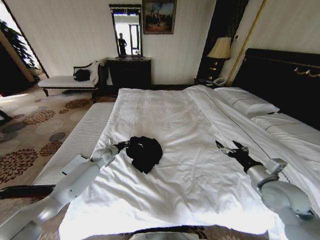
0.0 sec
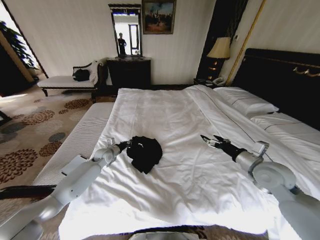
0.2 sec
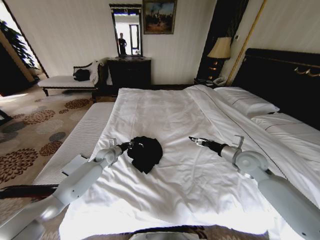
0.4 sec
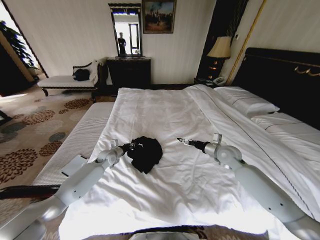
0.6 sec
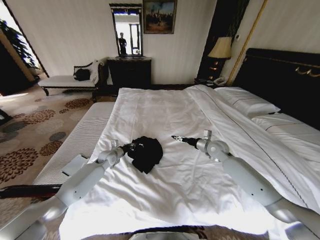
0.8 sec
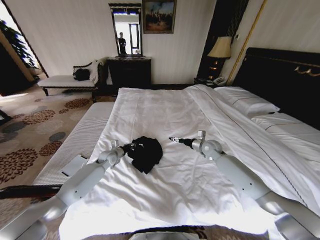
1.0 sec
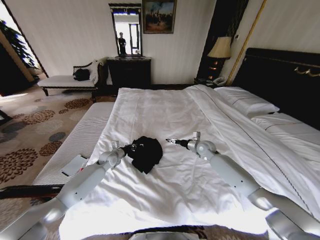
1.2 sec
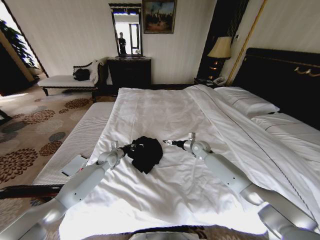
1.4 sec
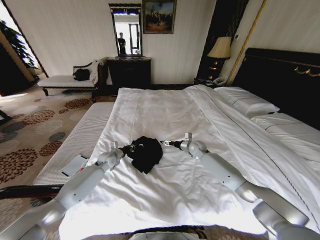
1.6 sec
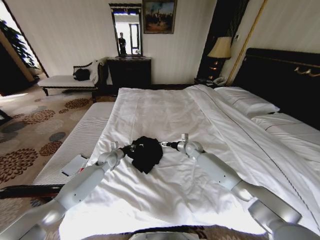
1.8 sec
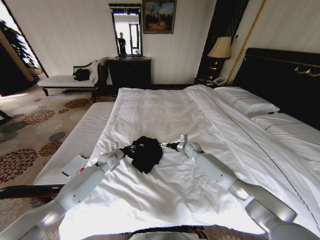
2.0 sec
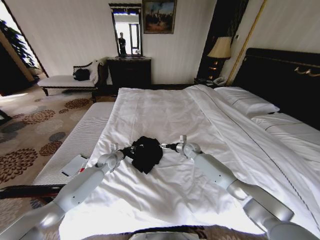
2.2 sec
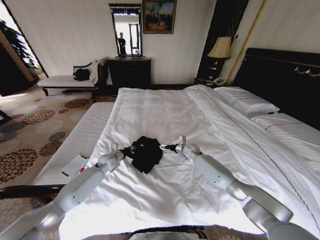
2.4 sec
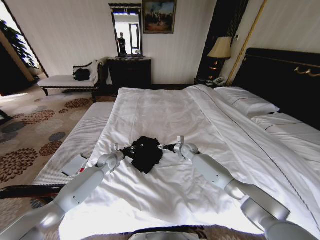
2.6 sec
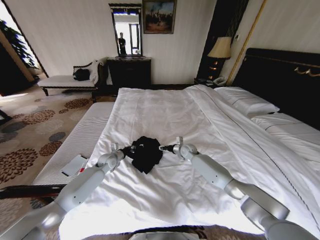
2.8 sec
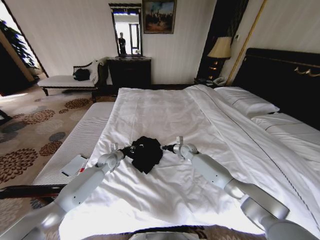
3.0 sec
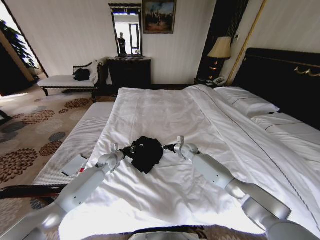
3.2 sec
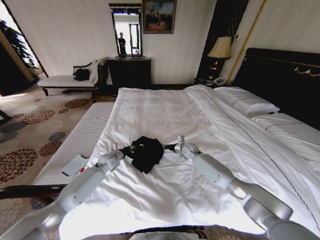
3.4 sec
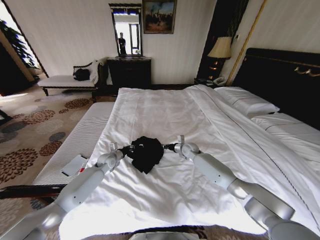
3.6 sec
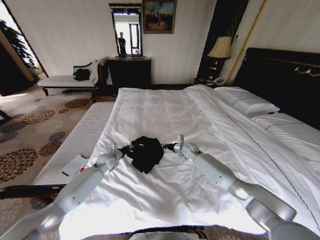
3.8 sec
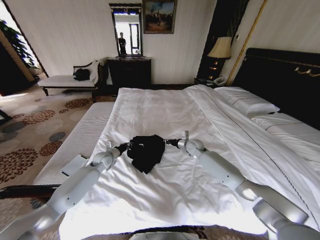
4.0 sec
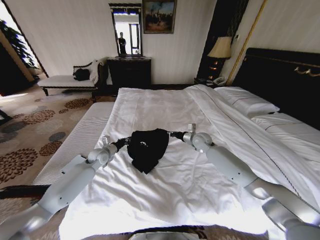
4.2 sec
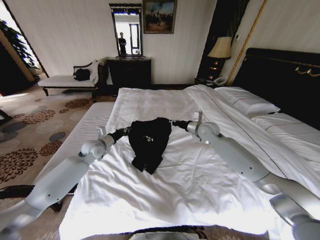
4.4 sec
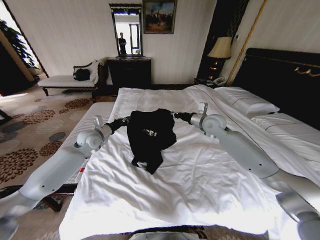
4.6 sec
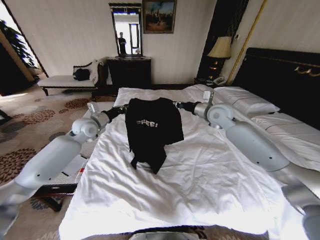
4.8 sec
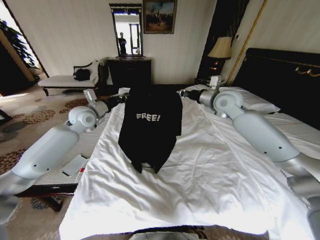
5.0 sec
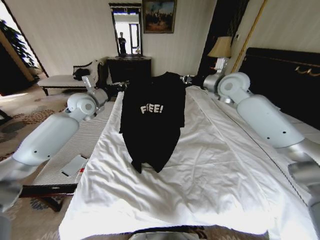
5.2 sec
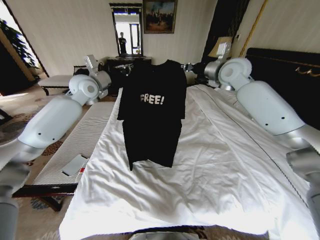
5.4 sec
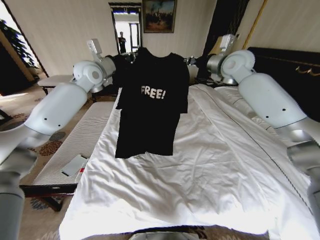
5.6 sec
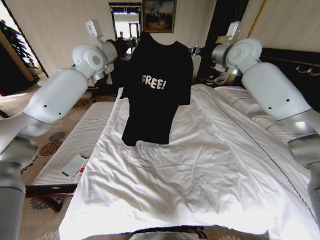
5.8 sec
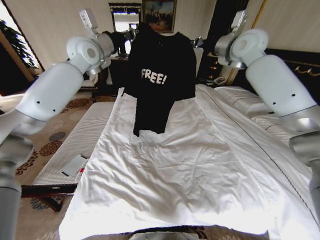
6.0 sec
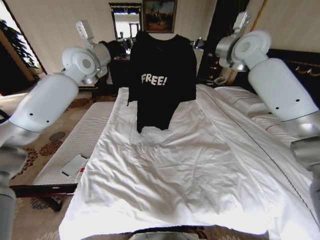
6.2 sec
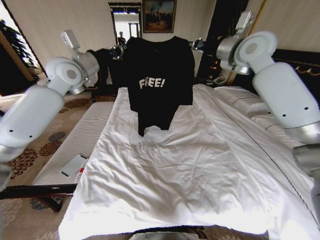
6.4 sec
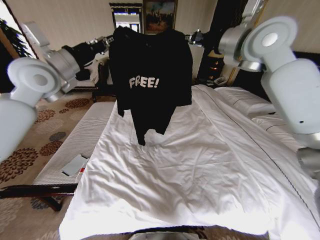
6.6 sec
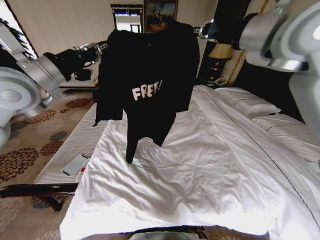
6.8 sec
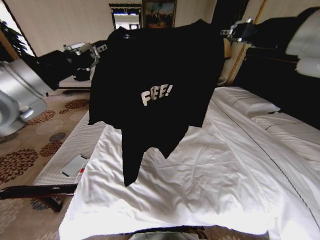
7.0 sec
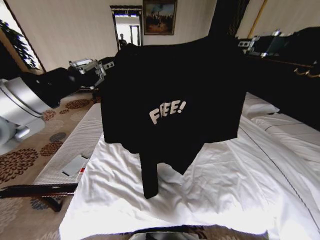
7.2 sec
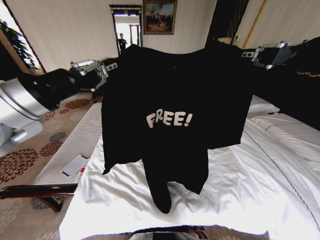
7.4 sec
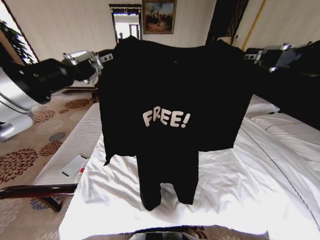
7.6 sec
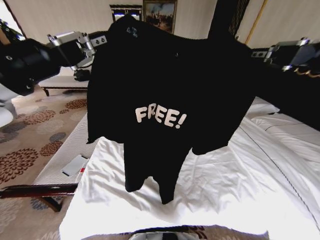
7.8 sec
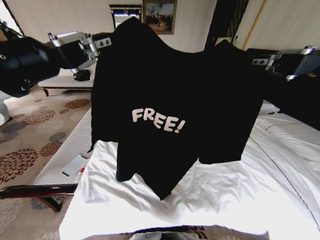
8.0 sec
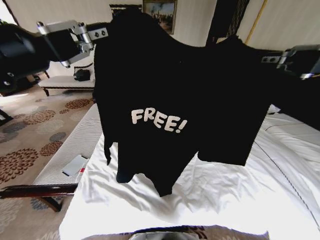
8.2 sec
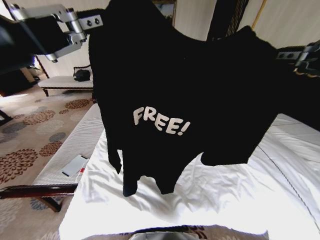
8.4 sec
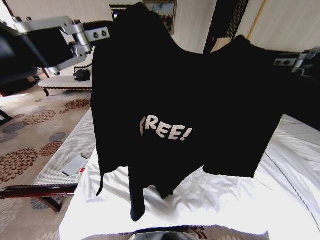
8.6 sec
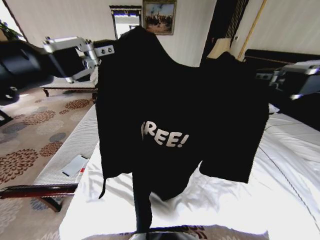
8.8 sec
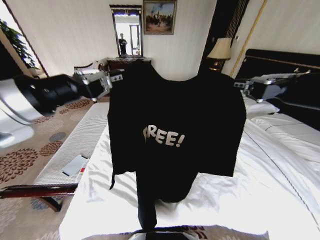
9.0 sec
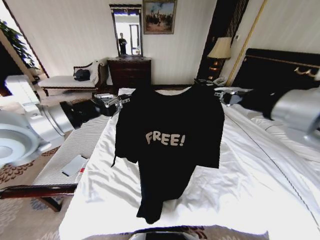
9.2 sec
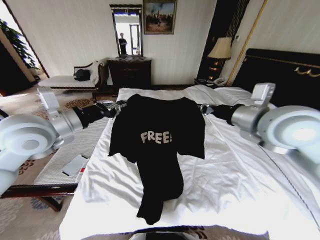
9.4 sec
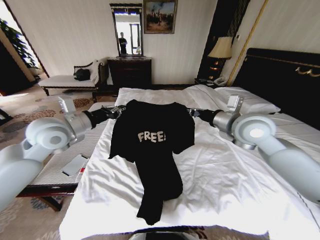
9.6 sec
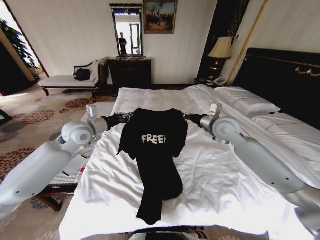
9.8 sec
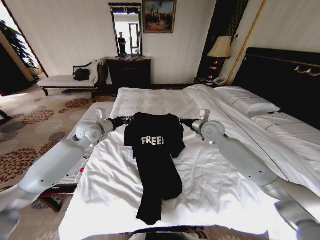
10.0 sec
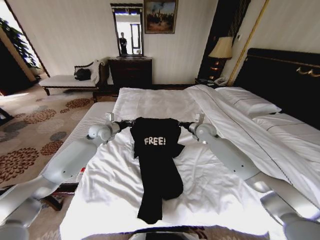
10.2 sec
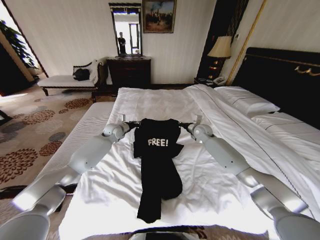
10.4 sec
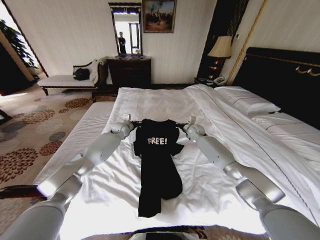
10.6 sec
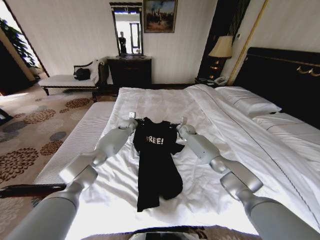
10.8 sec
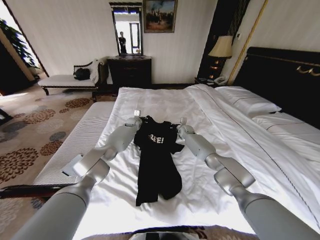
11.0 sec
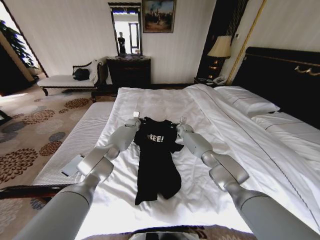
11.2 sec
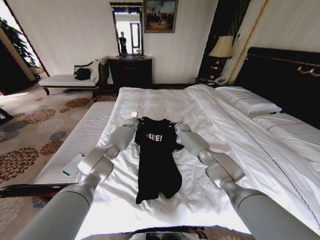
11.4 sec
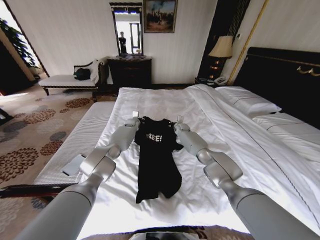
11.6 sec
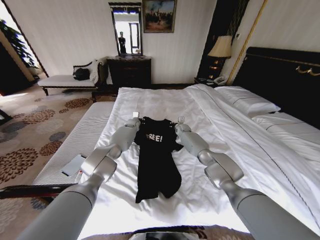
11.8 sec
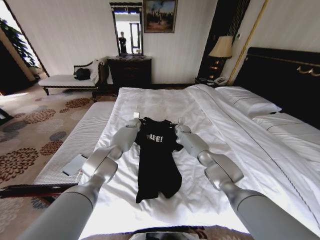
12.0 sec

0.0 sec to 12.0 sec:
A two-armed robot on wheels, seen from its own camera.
Task of the whole recording: Fold the clothes on the bed.
0.0 sec to 1.6 sec: The right gripper travels forward and to the left by approximately 30 cm.
1.6 sec to 3.0 sec: The right gripper ends up some 5 cm from where it was, and closes its fingers.
3.0 sec to 4.4 sec: Both grippers travel together upward, about 15 cm. The right gripper closes.
4.4 sec to 6.0 sec: Both grippers travel together upward, some 35 cm.
6.0 sec to 7.6 sec: The grippers both shift backward by about 35 cm.
7.6 sec to 9.0 sec: The right gripper moves about 10 cm backward and comes back.
9.0 sec to 10.4 sec: Both grippers move forward and downward, some 50 cm.
10.4 sec to 12.0 sec: The left gripper goes some 15 cm forward, to the right and downward. Meanwhile the right gripper moves forward, downward and to the left, approximately 15 cm.

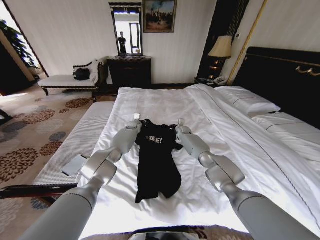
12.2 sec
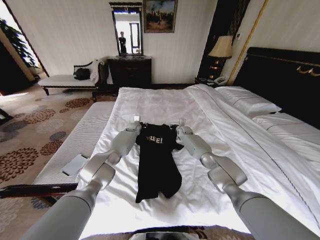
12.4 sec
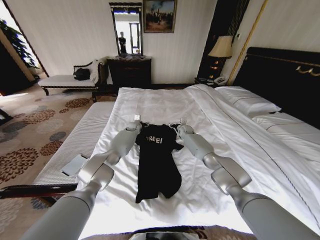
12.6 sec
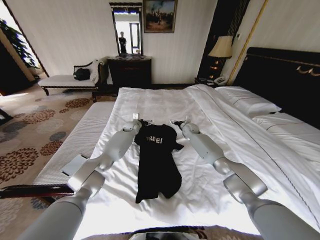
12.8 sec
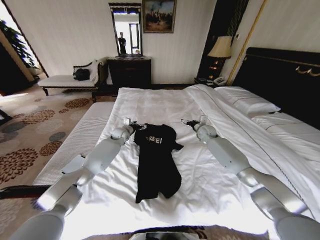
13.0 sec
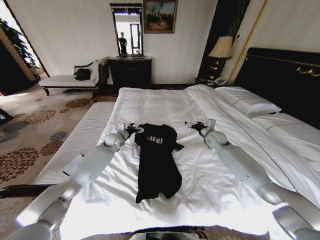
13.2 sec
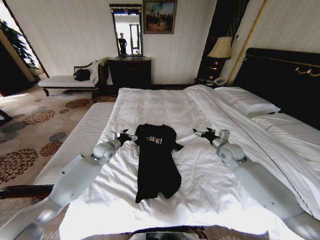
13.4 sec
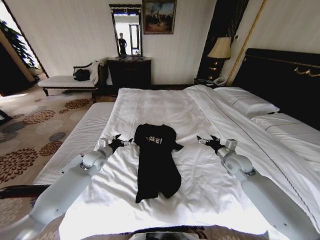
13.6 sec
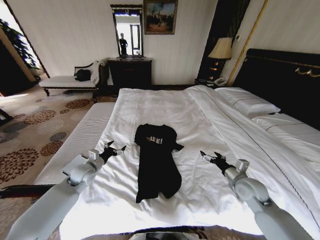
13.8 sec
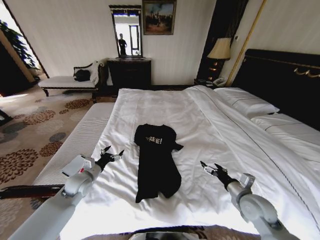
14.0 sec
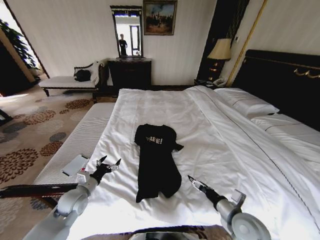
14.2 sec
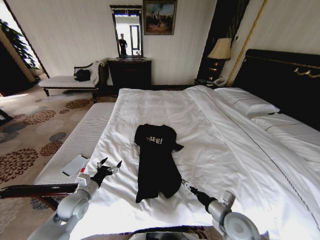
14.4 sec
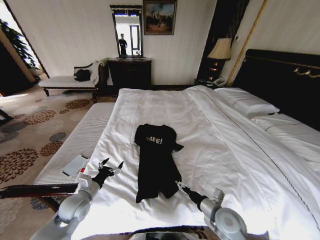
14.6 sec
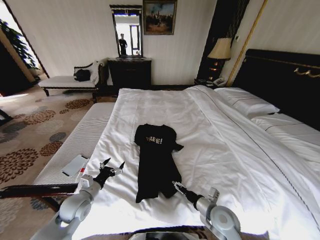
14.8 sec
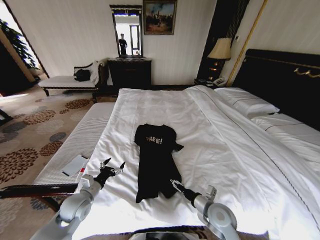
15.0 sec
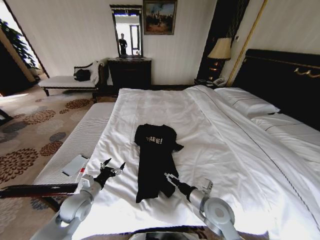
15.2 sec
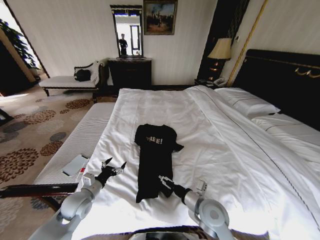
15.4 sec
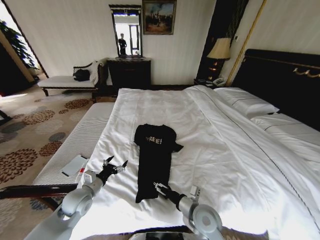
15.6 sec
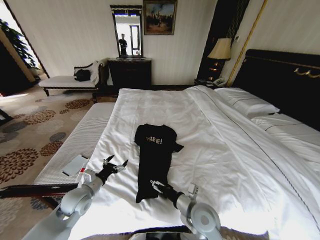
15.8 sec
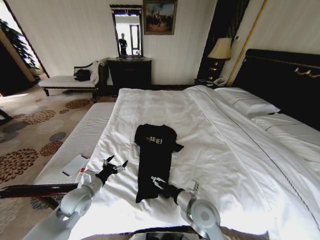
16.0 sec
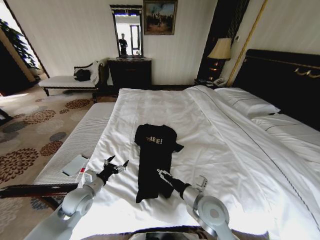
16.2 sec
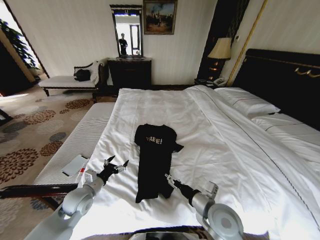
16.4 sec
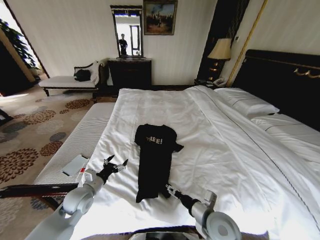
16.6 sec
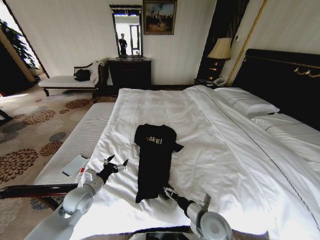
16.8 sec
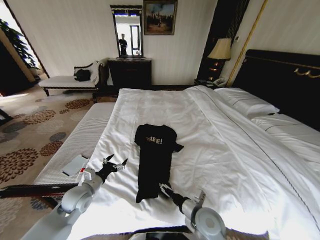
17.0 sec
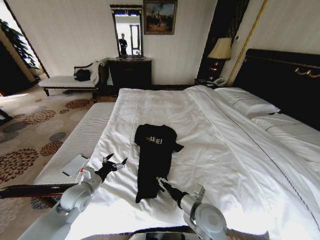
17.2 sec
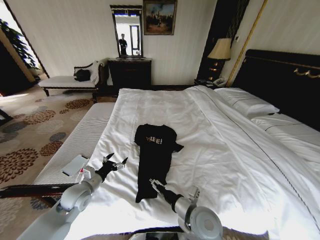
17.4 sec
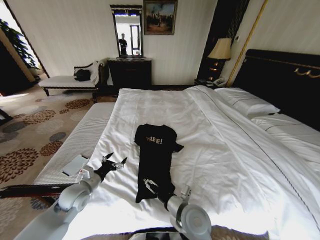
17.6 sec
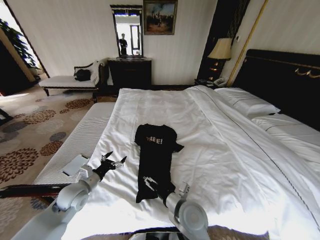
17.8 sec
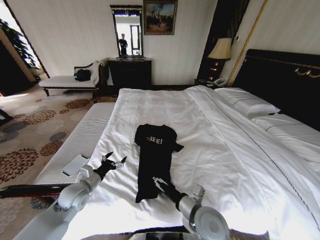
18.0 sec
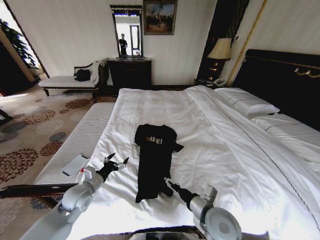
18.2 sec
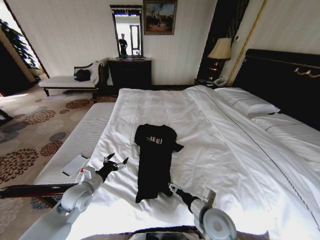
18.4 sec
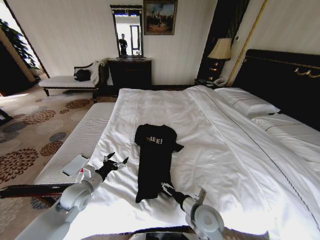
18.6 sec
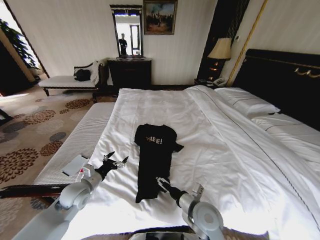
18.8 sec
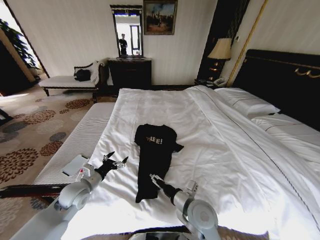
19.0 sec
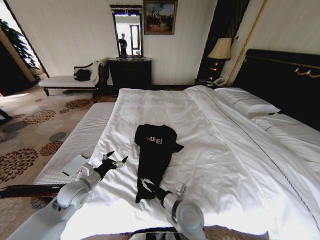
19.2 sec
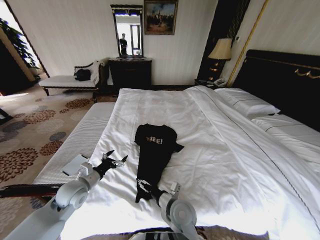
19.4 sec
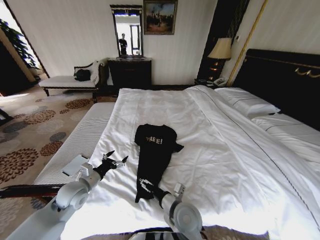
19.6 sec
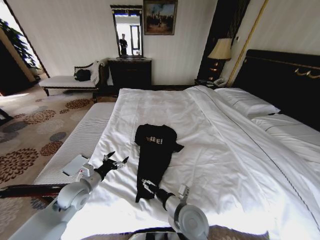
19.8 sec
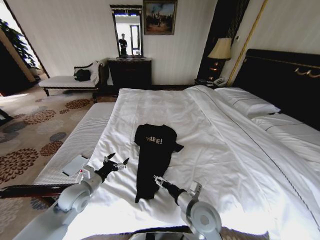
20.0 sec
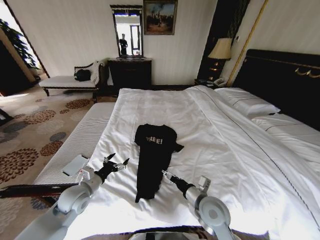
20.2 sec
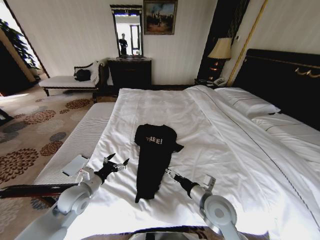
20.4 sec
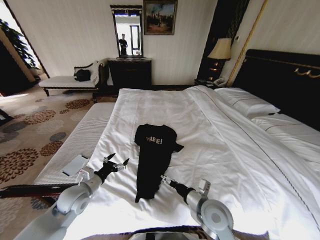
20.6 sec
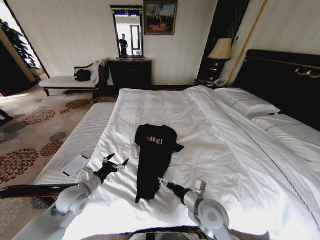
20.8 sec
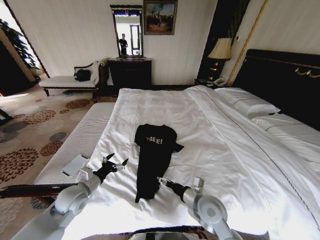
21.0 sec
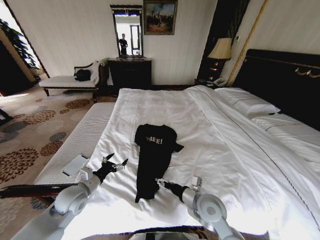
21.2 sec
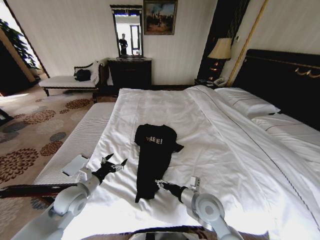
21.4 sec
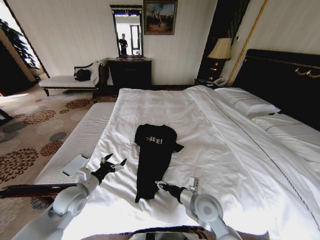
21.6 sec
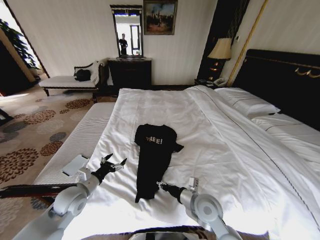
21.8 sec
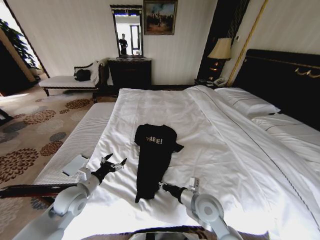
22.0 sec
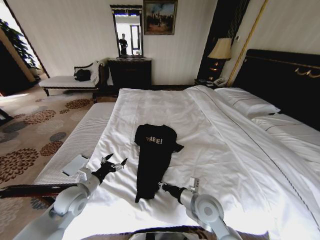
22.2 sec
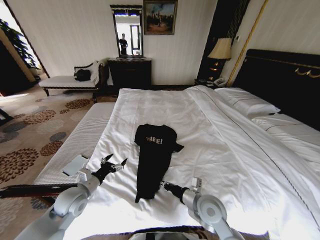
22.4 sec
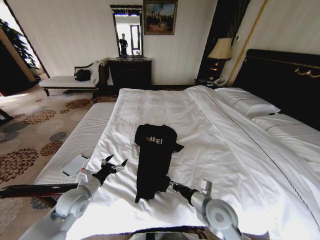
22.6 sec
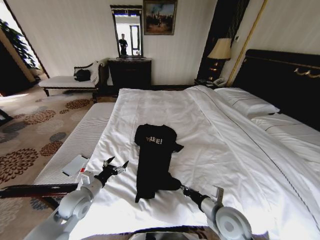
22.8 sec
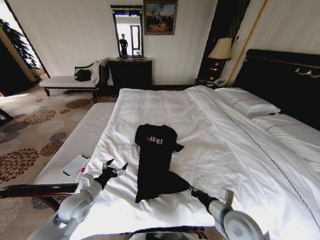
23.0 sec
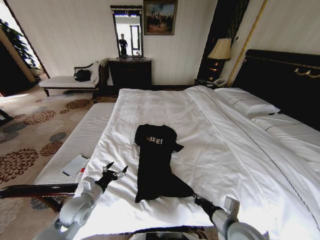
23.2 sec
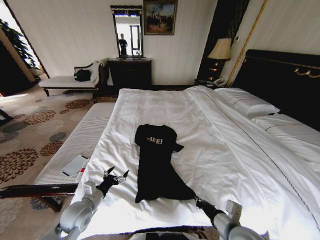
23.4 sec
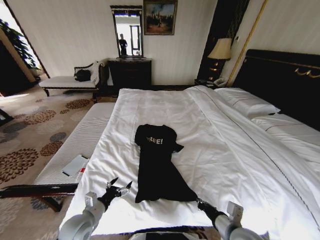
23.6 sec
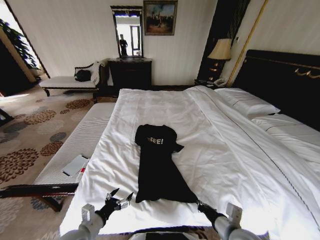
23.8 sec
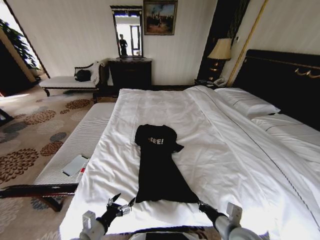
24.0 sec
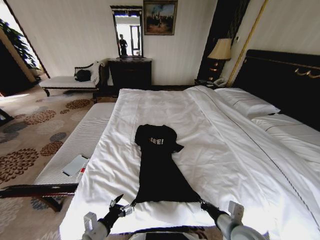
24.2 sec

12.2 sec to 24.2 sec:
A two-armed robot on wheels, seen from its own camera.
Task of the whole recording: Fold the clothes on the bed.
12.2 sec to 13.8 sec: The right gripper shifts about 40 cm backward and to the right, and opens its fingers, while the left gripper travels backward and to the left by about 35 cm, and opens.
13.8 sec to 15.2 sec: The right gripper heads to the left and backward, covering approximately 15 cm; the left gripper moves backward, about 10 cm.
15.2 sec to 16.6 sec: The grippers move only a little.
16.6 sec to 18.2 sec: The right gripper moves about 10 cm to the left and comes back.
18.2 sec to 19.8 sec: The right gripper is displaced to the left by some 10 cm.
19.8 sec to 21.2 sec: The right gripper goes about 10 cm to the right.
21.2 sec to 22.6 sec: The right gripper closes.
22.6 sec to 24.2 sec: The left gripper is displaced backward and downward by approximately 15 cm. The right gripper moves backward and to the right, approximately 10 cm.
